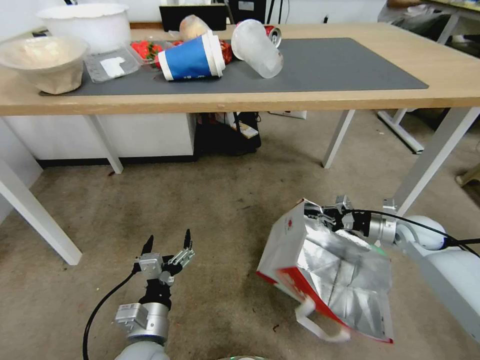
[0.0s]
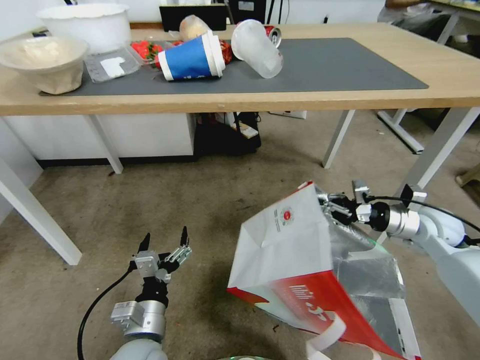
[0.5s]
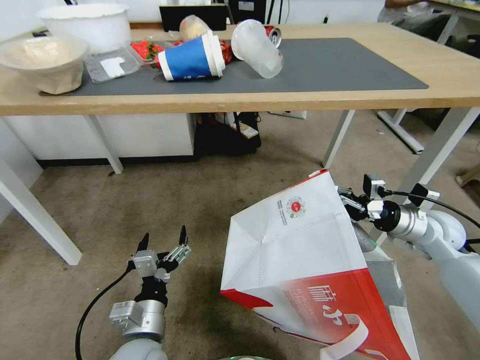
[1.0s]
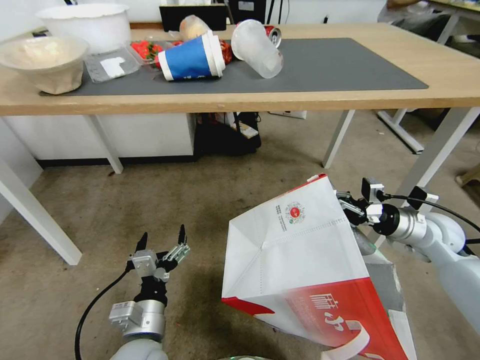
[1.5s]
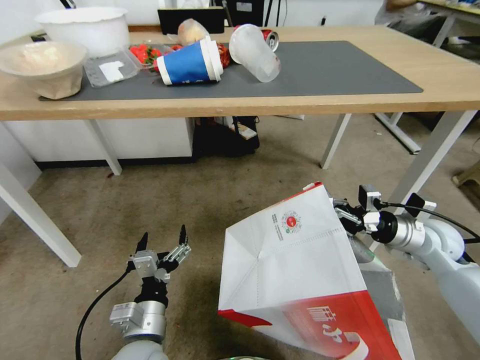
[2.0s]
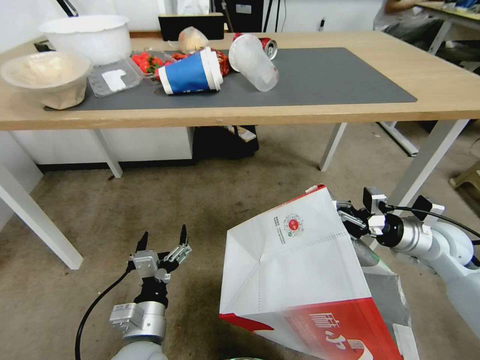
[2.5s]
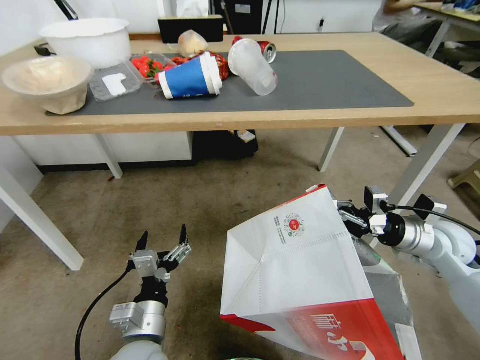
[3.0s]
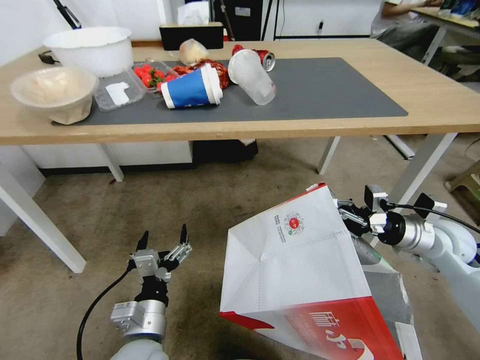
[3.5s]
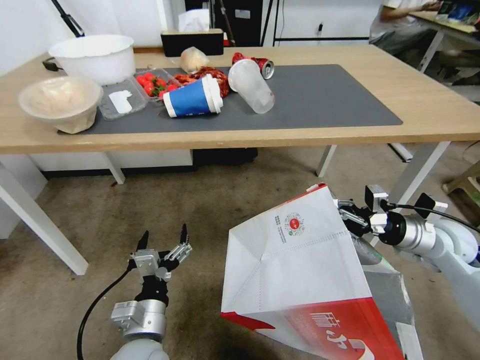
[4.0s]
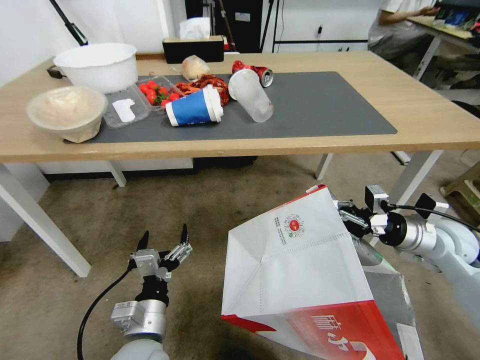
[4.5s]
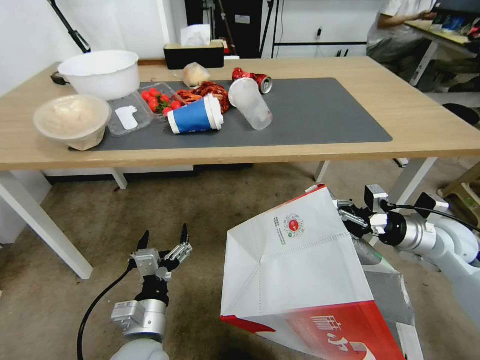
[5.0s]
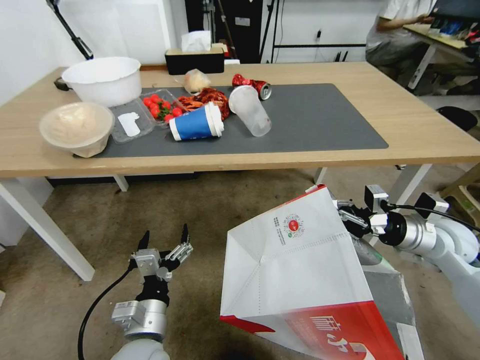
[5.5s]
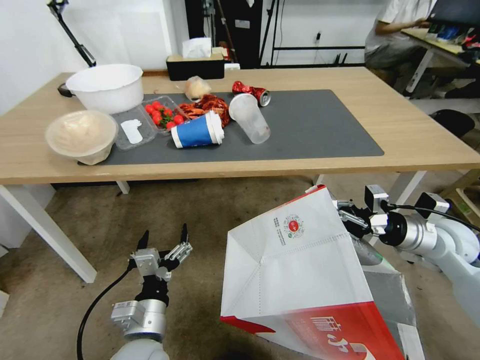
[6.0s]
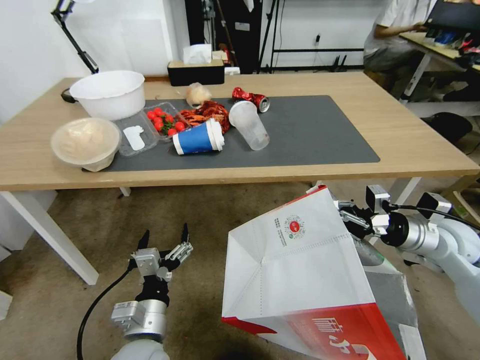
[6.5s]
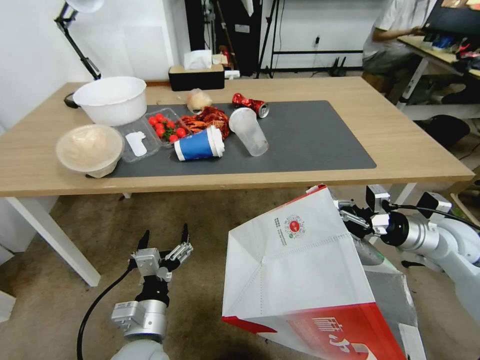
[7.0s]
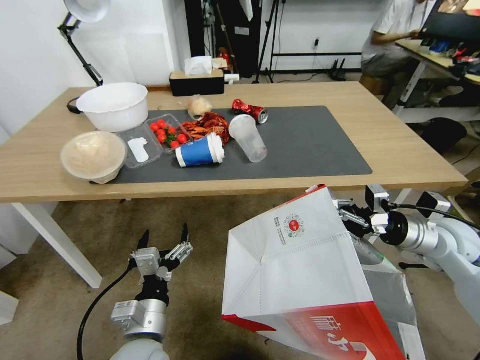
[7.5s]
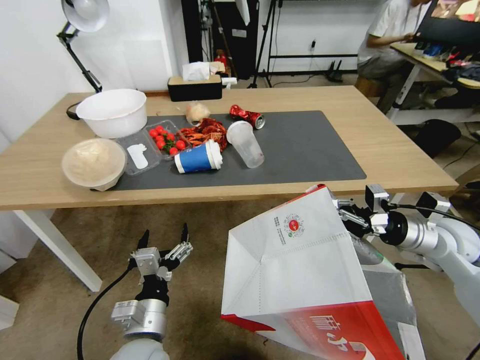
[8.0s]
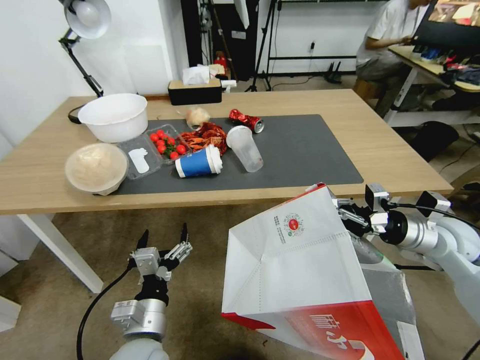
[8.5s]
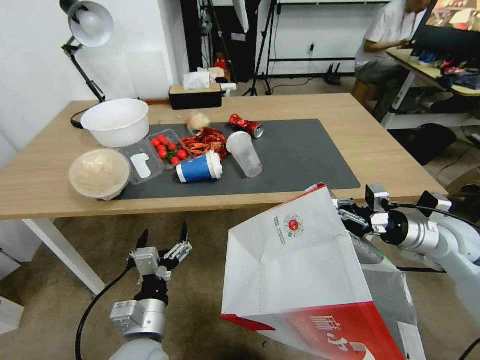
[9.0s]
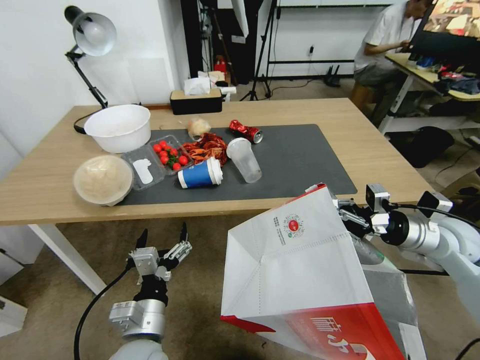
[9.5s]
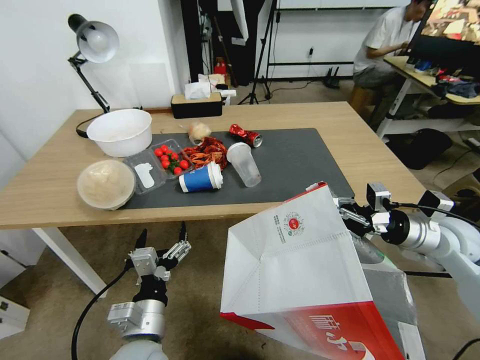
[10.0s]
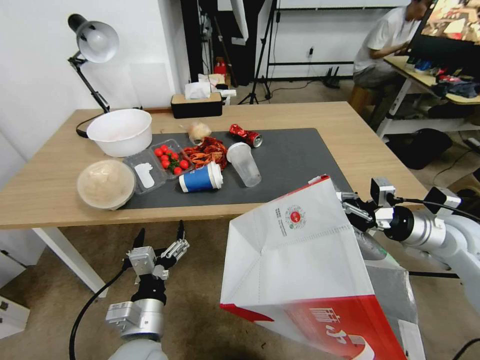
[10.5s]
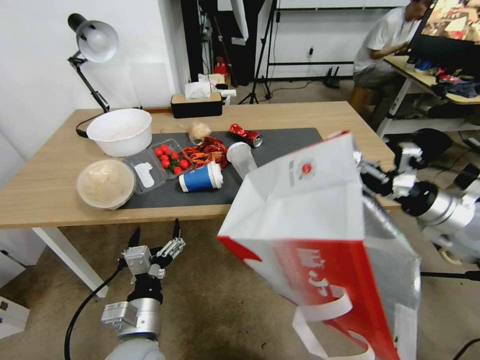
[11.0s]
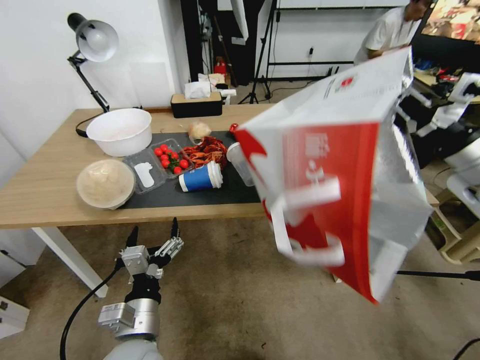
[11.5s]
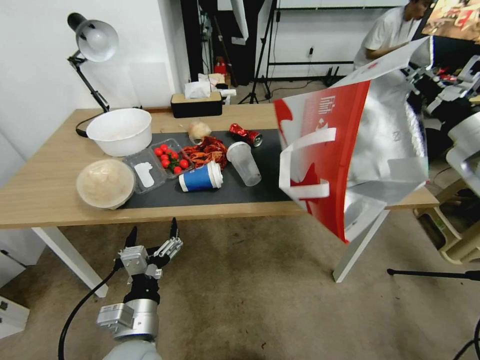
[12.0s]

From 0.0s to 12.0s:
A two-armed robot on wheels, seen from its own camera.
Task of the whole recording: Pick up the food delivery bag from the floor and place it on the table.
From 0.0s to 2.0s: The right gripper shifts about 10 cm upward and backward.
From 10.0s to 12.0s: The right gripper shifts about 15 cm upward.

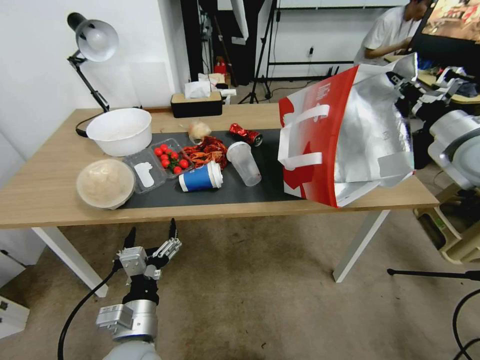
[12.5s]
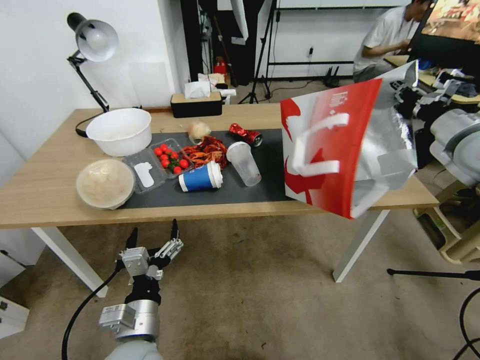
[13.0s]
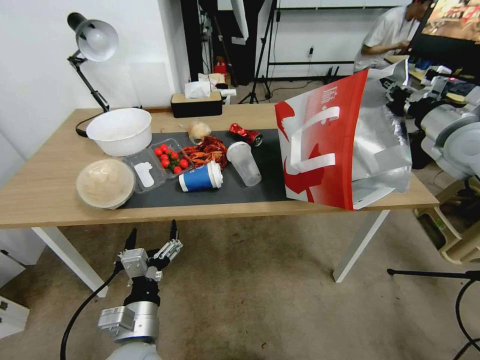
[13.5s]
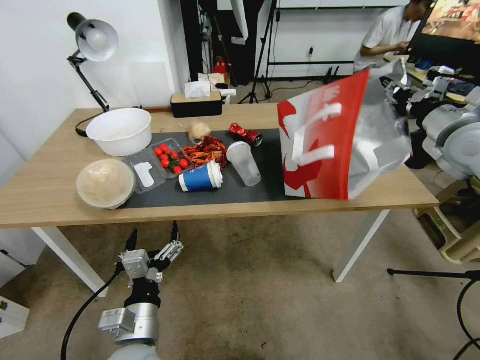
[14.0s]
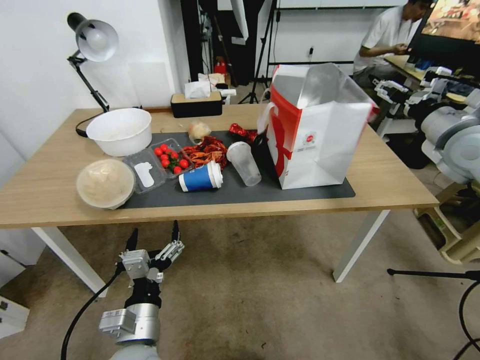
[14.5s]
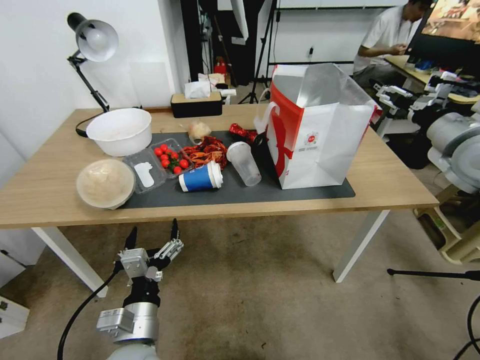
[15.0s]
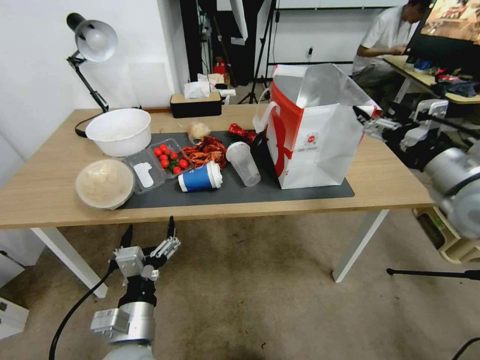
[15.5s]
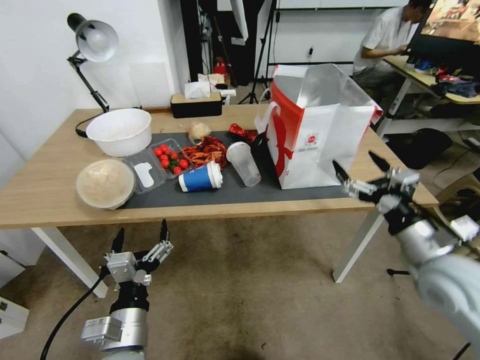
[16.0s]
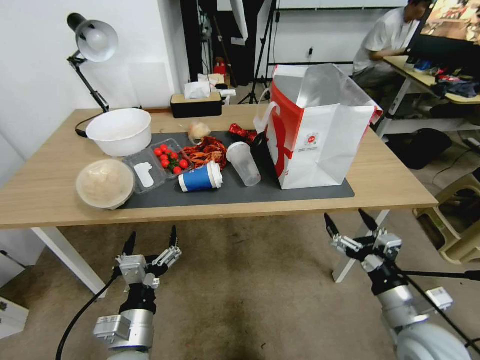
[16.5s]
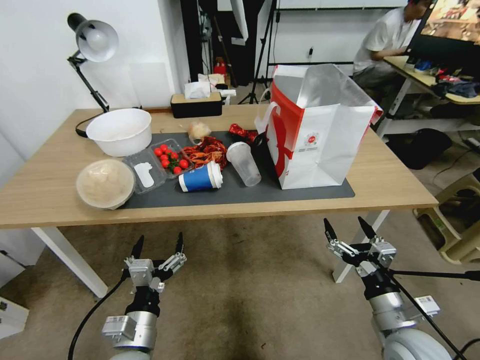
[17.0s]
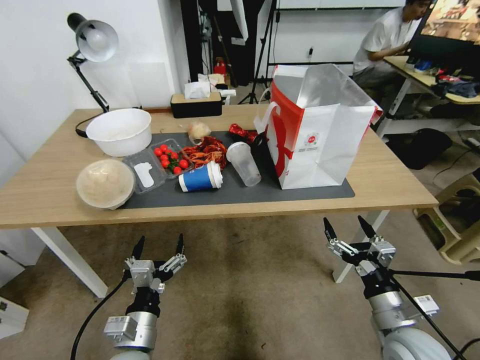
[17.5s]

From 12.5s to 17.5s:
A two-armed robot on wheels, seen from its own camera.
Task of the whole recording: Pick up the food delivery bag from the floor and place it on the table.
From 12.5s to 15.0s: The right gripper opens up.
From 15.0s to 17.5s: The left gripper ends up about 5 cm from where it was; the right gripper heads downward and backward, covering approximately 35 cm.
